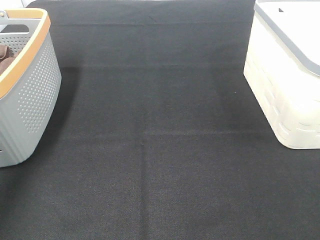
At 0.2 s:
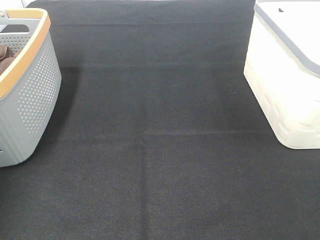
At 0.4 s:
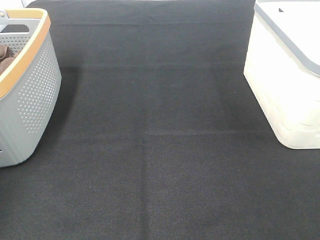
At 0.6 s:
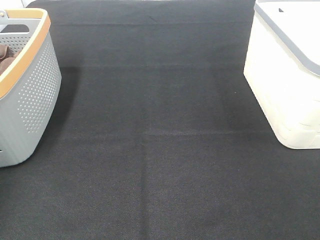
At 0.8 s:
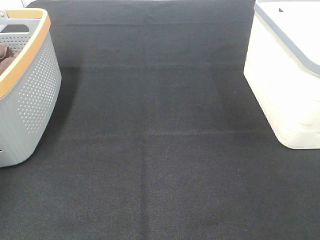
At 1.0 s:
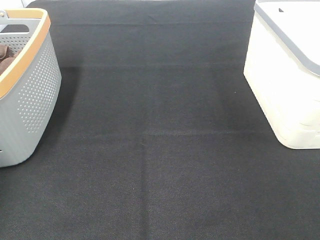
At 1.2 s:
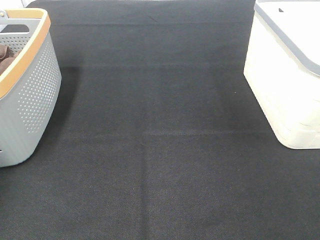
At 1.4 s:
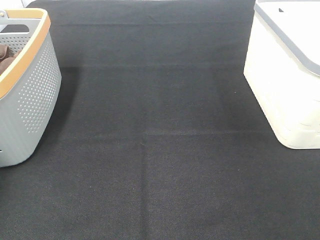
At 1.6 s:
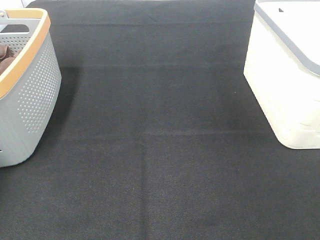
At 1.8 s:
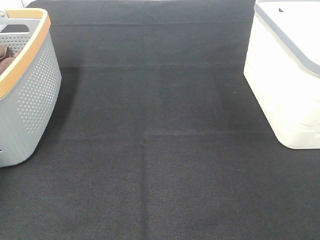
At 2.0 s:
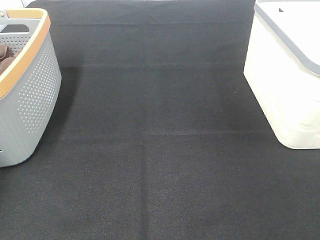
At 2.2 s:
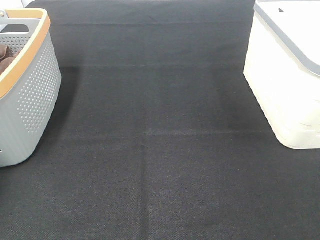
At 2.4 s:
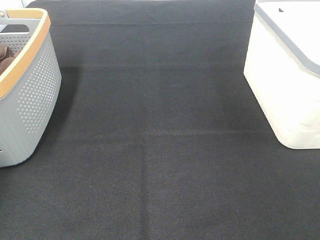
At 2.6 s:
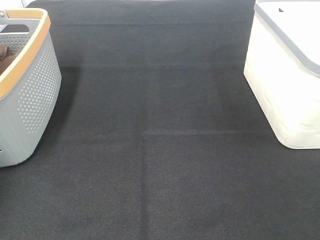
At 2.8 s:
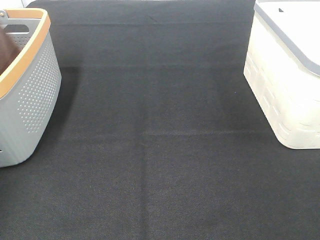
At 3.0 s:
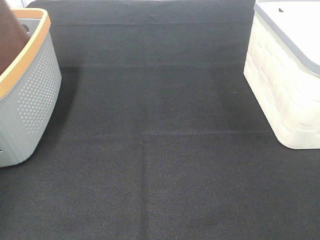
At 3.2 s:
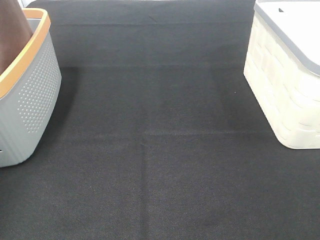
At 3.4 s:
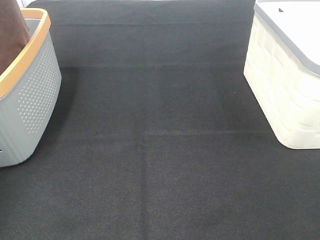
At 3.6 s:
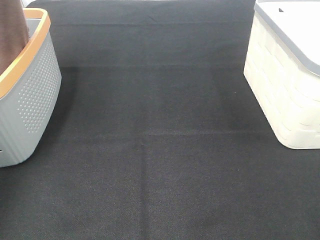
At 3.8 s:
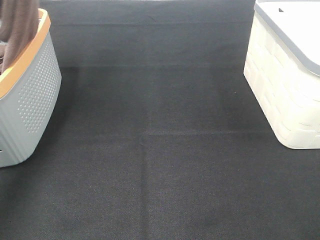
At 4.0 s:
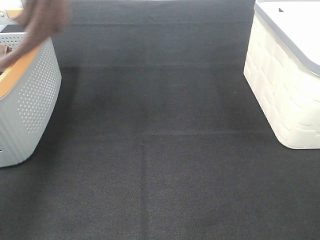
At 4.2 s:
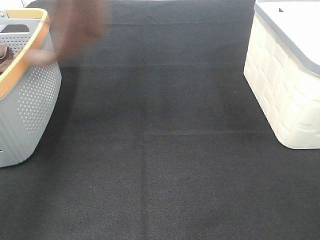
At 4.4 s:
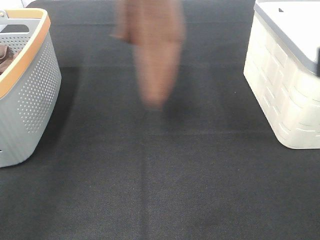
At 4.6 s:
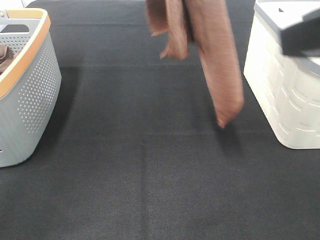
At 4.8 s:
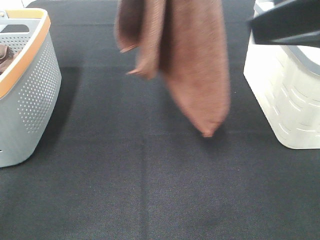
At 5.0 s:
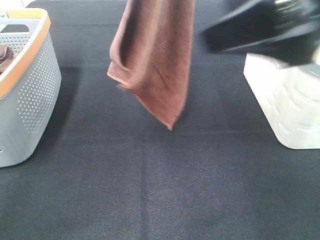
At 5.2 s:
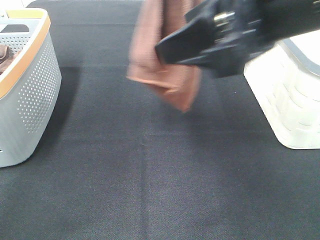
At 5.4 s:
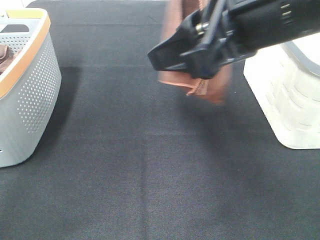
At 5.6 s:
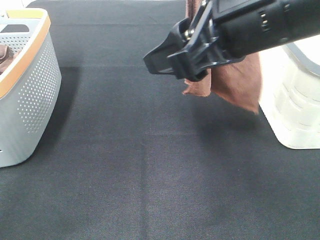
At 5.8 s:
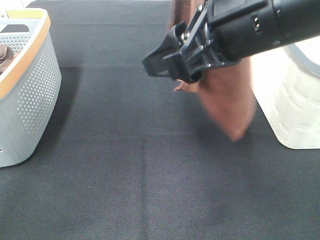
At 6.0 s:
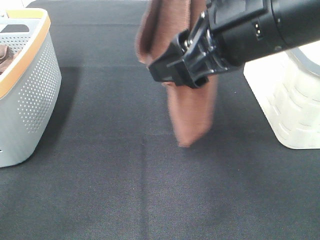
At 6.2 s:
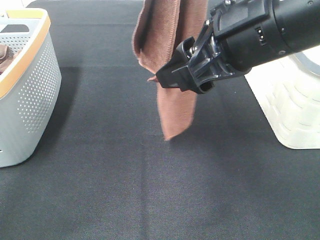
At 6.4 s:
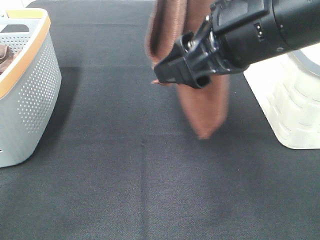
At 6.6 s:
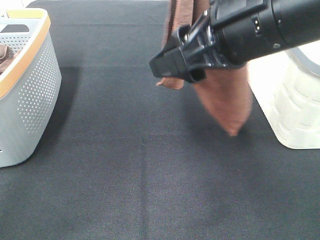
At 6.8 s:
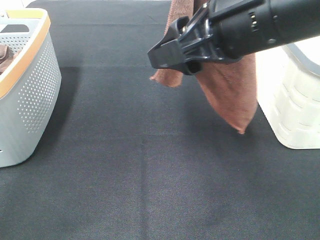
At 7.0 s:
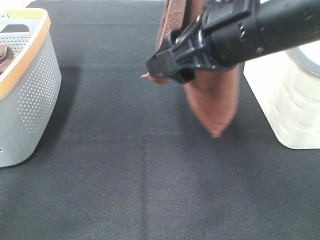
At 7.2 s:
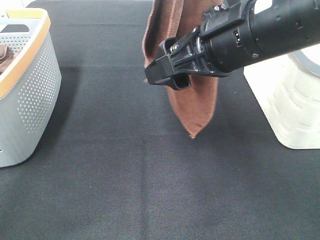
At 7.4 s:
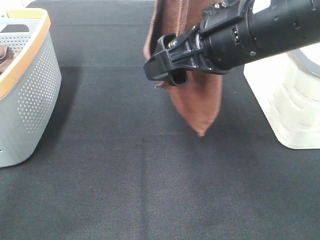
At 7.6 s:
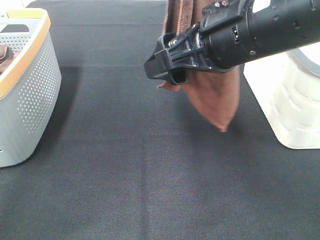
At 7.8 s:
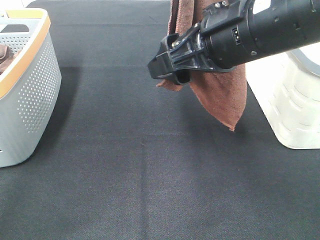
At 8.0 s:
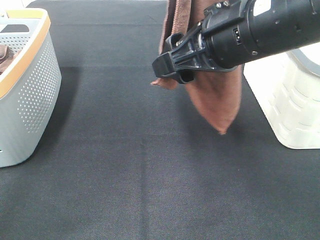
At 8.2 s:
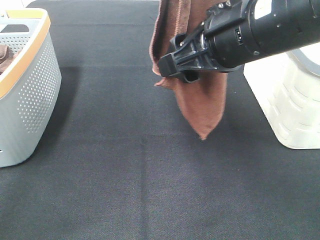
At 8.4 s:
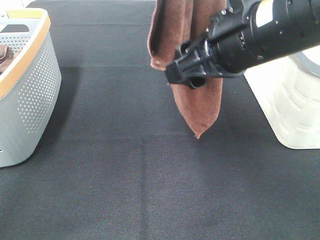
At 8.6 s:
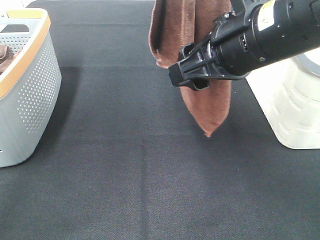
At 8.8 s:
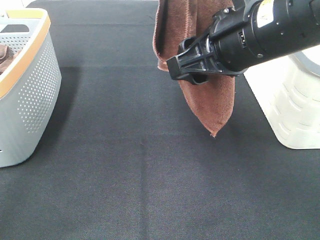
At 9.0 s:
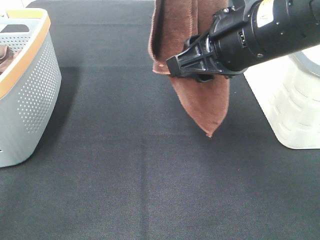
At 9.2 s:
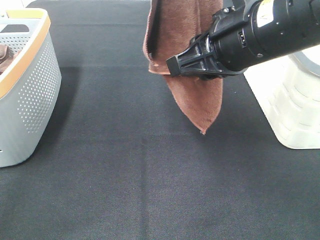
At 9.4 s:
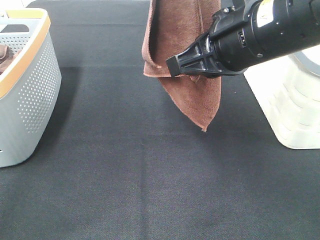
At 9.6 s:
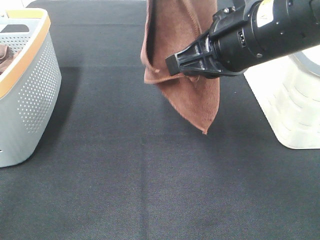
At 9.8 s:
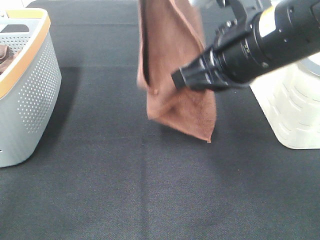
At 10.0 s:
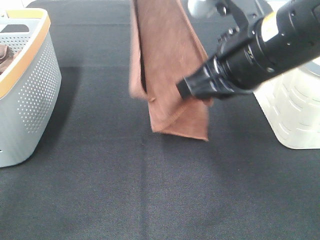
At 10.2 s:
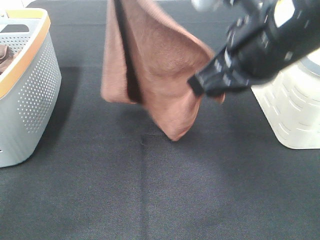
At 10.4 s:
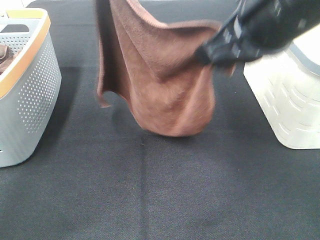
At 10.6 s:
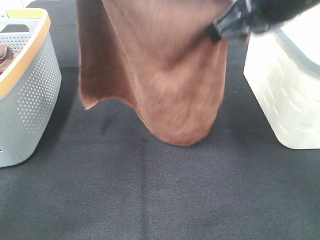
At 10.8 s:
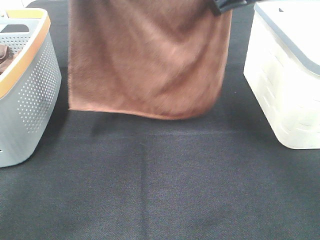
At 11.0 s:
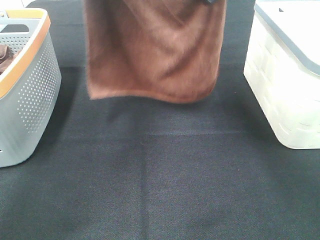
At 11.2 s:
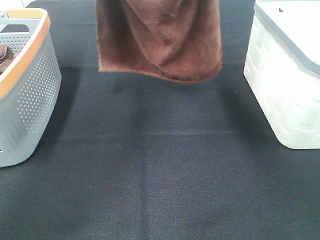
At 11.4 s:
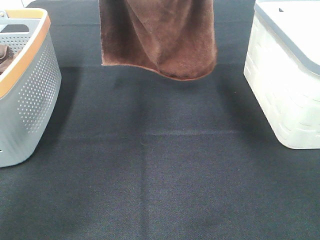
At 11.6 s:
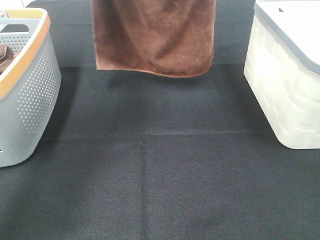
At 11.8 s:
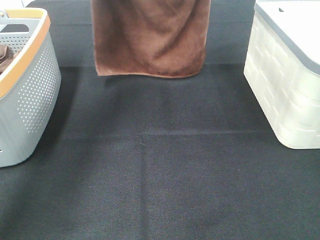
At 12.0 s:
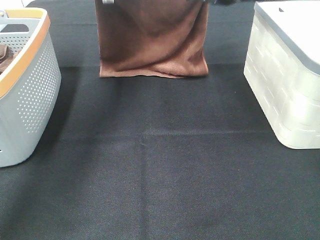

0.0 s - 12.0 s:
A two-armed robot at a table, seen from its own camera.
Task of the whole recording: Remove the towel and place it.
Step, 2.4 s - 7.4 s: Right hand: grab a corner of the brown towel and straighten it.
Step, 7.6 s - 10.6 s: Left hand: spread the brown towel flat on the table.
Step, 7.6 s - 10.6 s: Right hand: spread the brown towel flat on the table.
0.0 s - 1.6 s: The left gripper goes some 15 cm downward, to the left and forward, and closes its fingers.
1.6 s - 3.0 s: The left gripper is displaced upward by roughly 25 cm, and closes its fingers.
3.0 s - 4.4 s: The left gripper travels to the right by roughly 25 cm. Meanwhile the right gripper heads forward, upward and to the left, covering approximately 15 cm.
4.4 s - 6.0 s: The left gripper goes roughly 5 cm to the right, while the right gripper shifts roughly 15 cm to the left, forward and downward.
6.0 s - 7.6 s: The grippers stay close to where they were, moving slightly.
7.6 s - 9.0 s: The right gripper closes its fingers.
9.0 s - 10.4 s: The right gripper closes up, while the left gripper travels downward by roughly 5 cm.
10.4 s - 12.0 s: The left gripper is displaced forward and downward by about 25 cm. The right gripper shifts about 25 cm forward.

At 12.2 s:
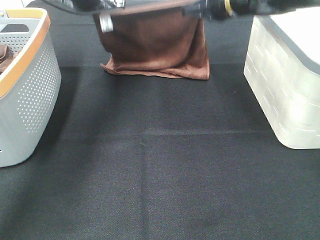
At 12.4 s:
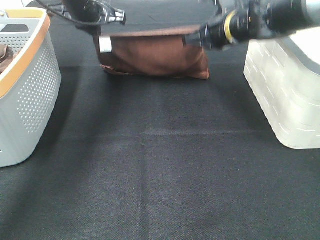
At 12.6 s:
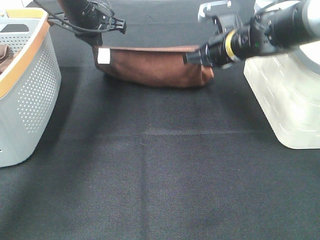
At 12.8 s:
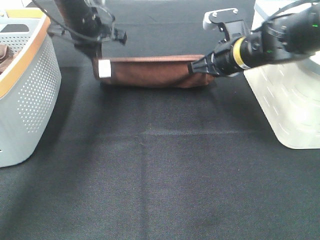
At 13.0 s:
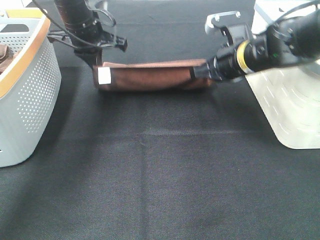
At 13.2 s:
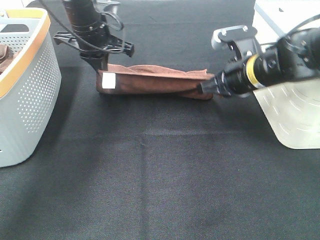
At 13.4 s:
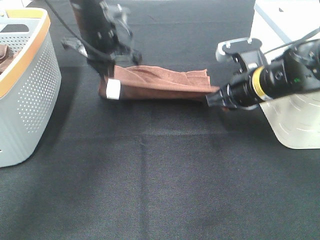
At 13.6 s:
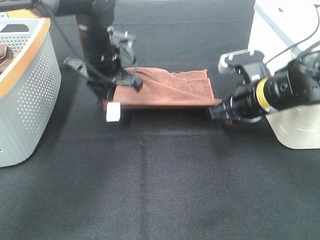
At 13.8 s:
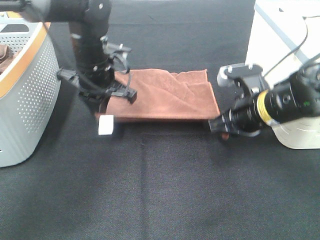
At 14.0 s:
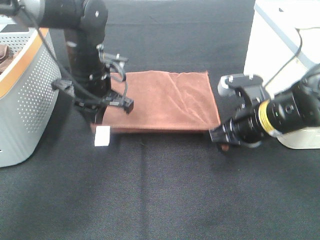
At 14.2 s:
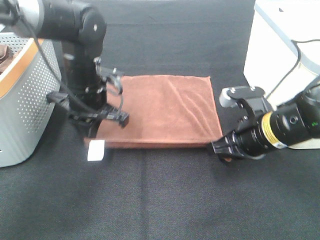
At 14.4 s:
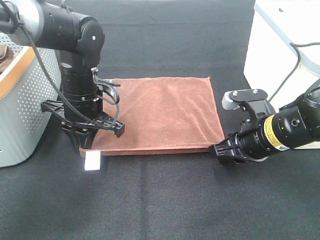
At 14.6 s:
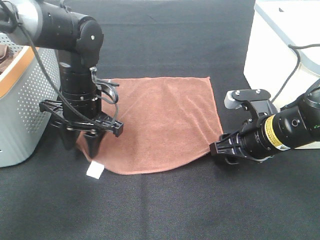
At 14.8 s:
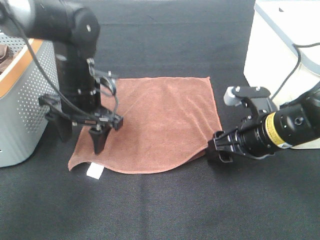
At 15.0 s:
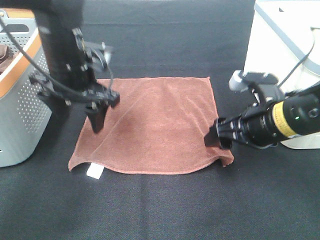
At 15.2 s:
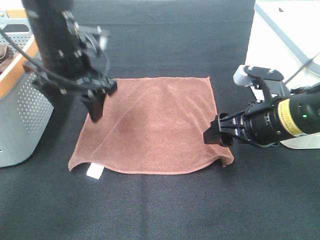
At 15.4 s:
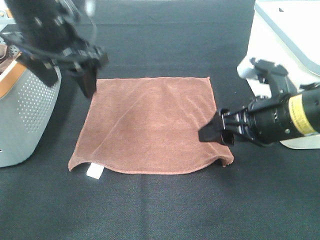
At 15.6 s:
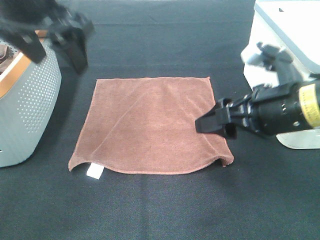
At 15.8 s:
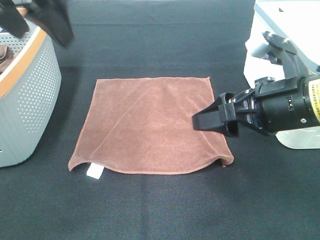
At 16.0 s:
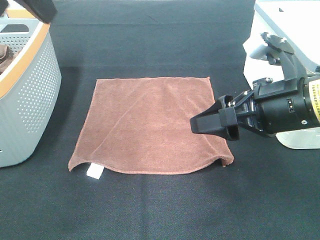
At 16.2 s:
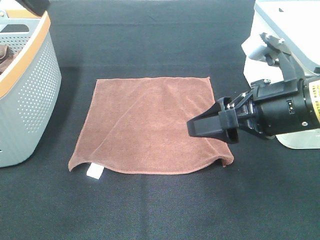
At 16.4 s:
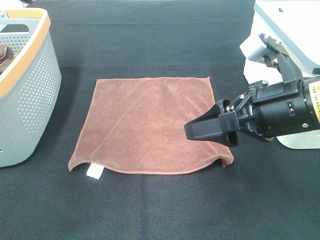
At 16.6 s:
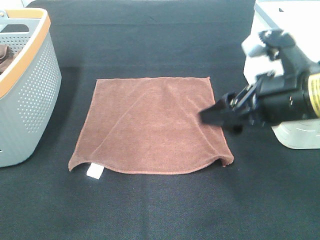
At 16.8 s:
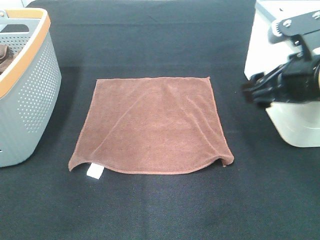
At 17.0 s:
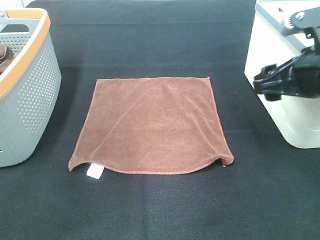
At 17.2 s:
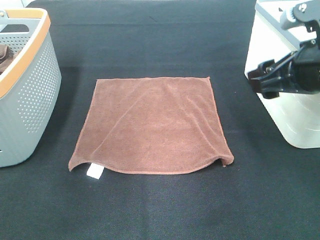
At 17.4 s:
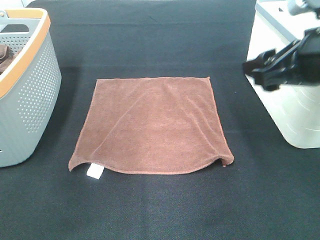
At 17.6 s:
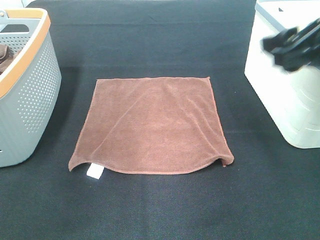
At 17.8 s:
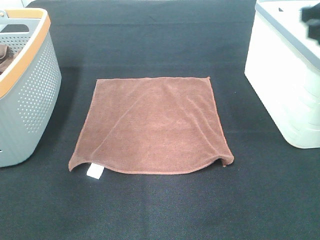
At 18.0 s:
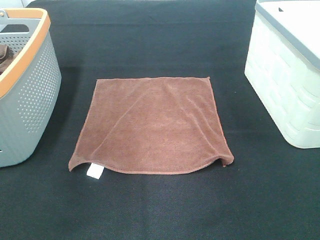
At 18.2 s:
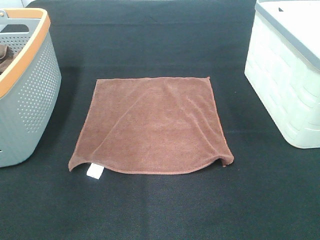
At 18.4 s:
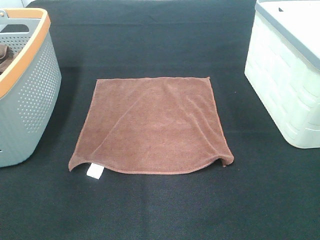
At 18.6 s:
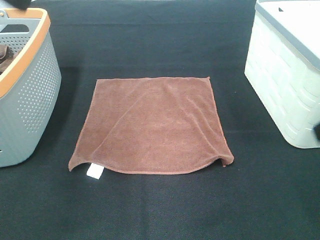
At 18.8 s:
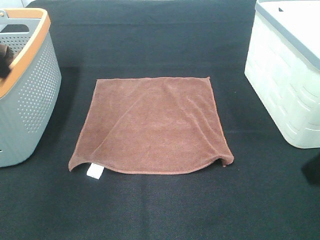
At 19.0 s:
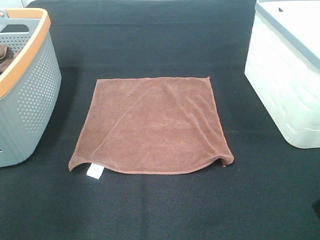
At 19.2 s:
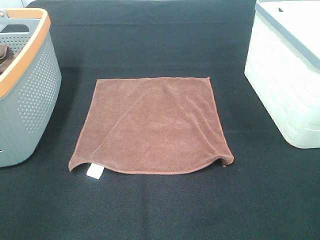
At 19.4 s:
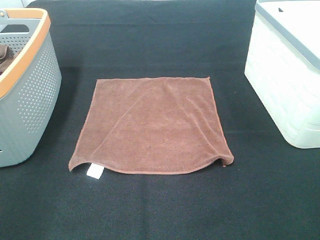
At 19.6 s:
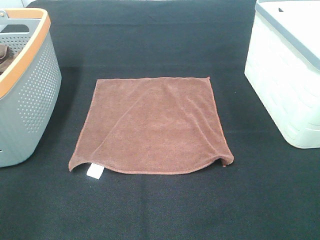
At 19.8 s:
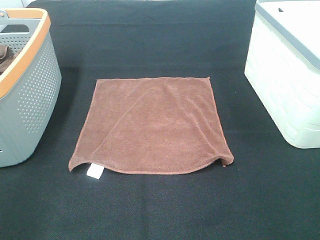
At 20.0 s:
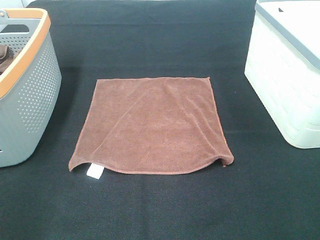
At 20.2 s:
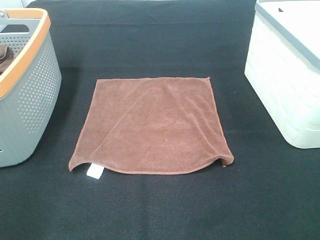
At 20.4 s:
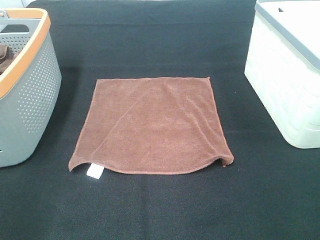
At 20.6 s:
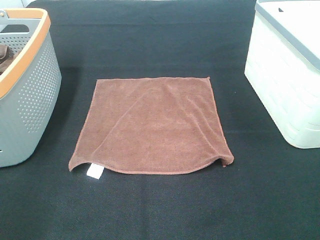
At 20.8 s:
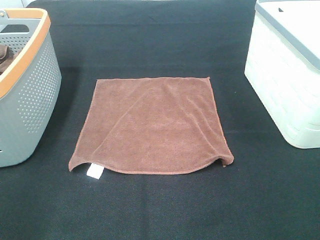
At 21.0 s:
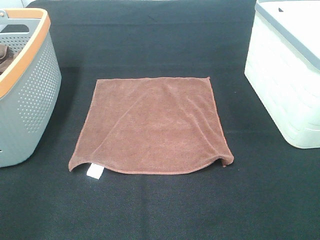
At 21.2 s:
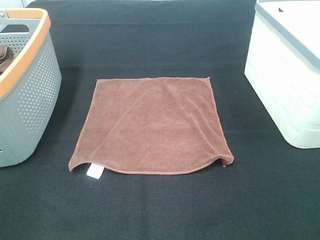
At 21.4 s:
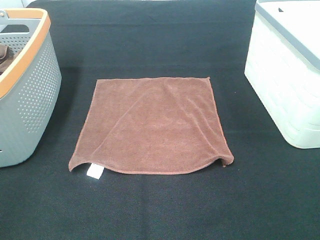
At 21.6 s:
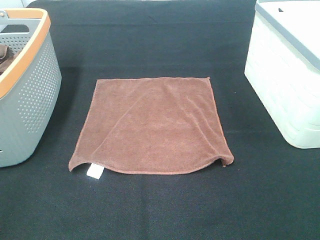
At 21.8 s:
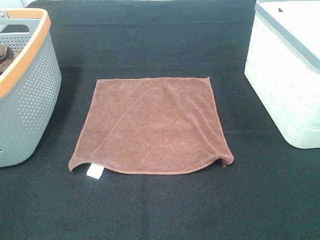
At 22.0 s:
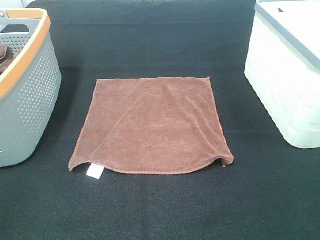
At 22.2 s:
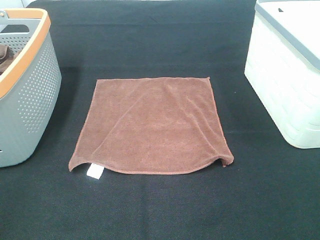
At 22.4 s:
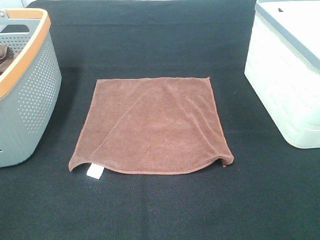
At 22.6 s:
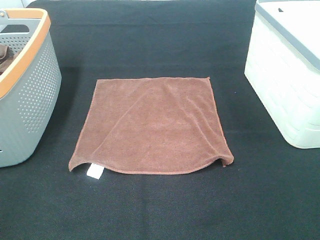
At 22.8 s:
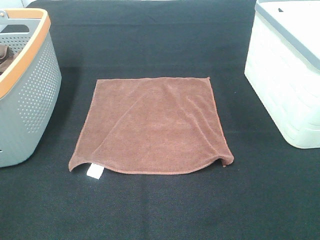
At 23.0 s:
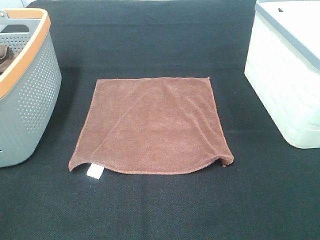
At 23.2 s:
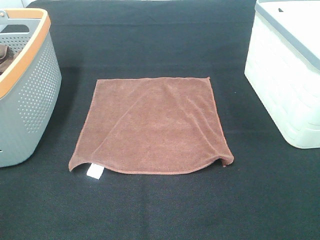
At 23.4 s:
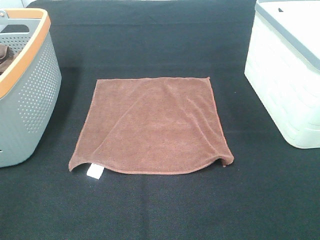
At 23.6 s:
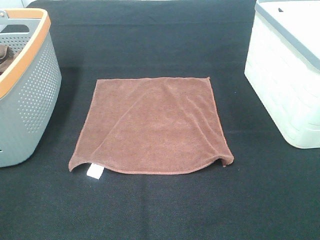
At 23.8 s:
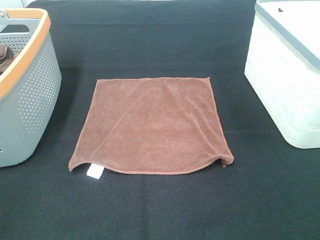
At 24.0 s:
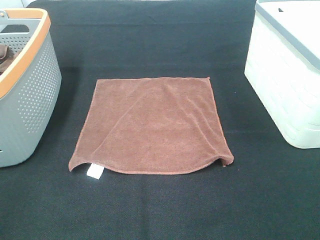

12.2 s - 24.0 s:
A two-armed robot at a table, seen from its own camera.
Task of the whole recording: Remove the towel and place it.
12.2 s - 13.6 s: The two grippers go approximately 15 cm backward and downward.
13.6 s - 15.2 s: The right gripper goes about 5 cm backward, and opens up. The left gripper heads backward and upward, covering some 10 cm, and opens up.
15.2 s - 16.6 s: The right gripper goes roughly 5 cm upward; the left gripper heads upward and backward, covering roughly 20 cm.
16.6 s - 18.2 s: The right gripper moves to the right and upward, some 15 cm.
18.2 s - 19.6 s: The left gripper shifts approximately 25 cm backward, downward and to the left. The right gripper travels backward by approximately 10 cm.
